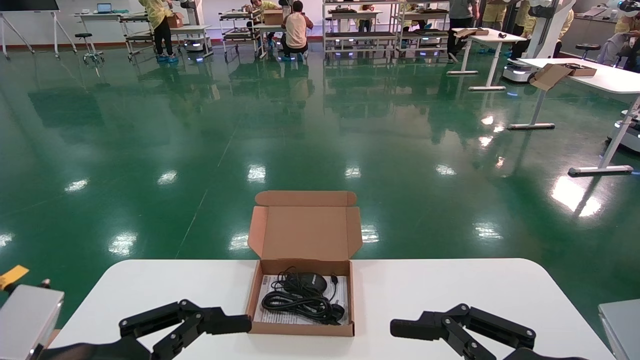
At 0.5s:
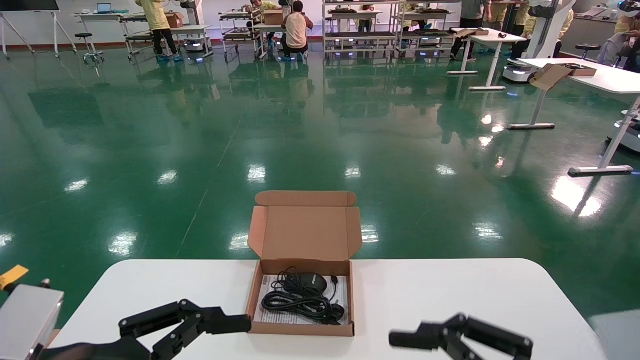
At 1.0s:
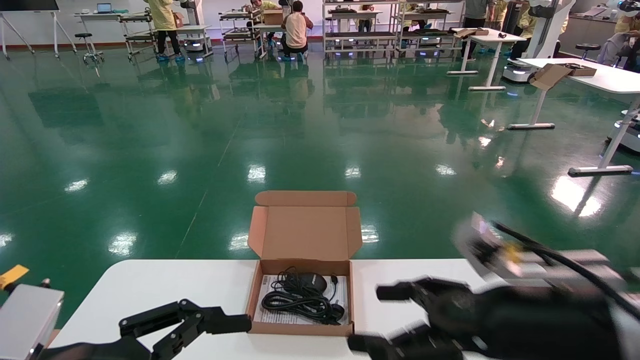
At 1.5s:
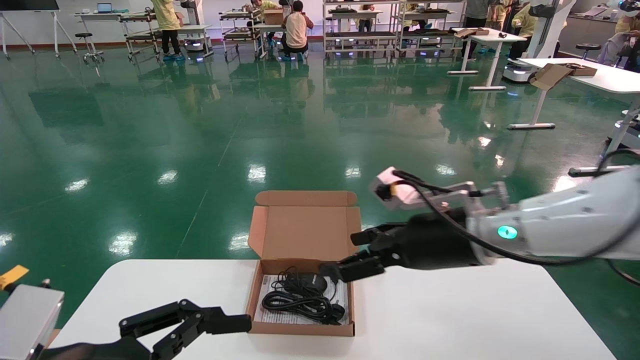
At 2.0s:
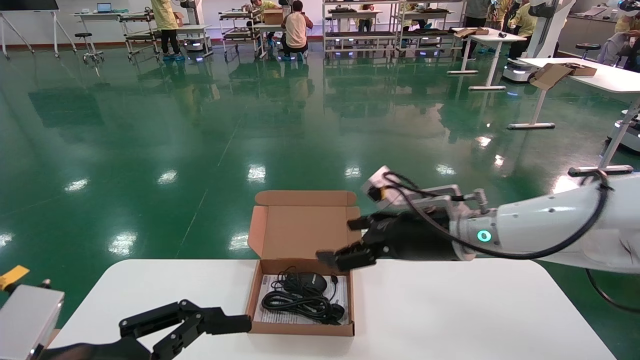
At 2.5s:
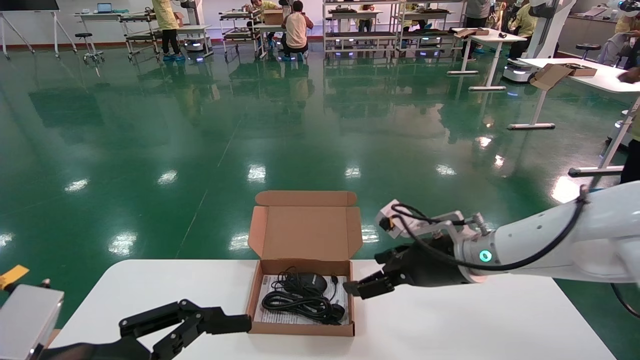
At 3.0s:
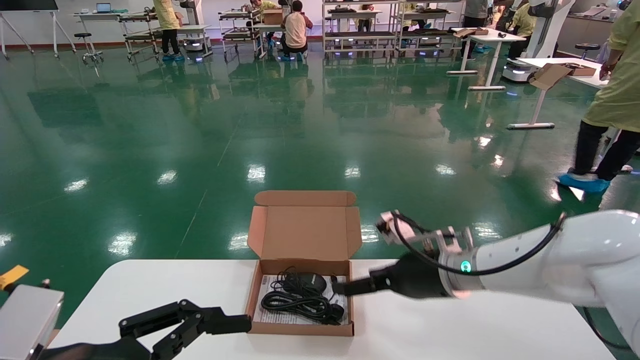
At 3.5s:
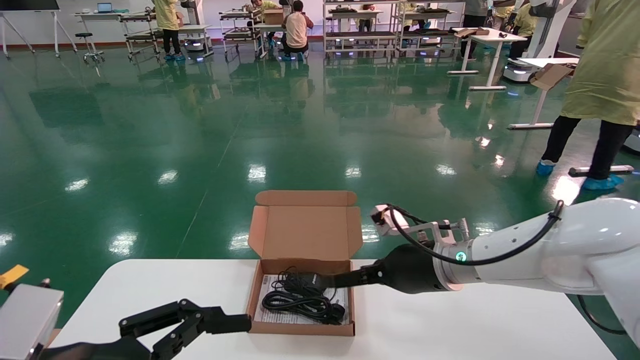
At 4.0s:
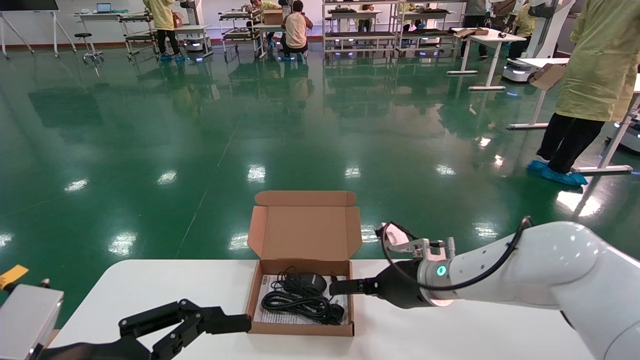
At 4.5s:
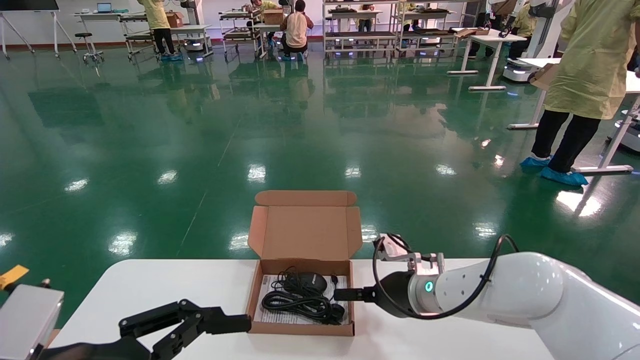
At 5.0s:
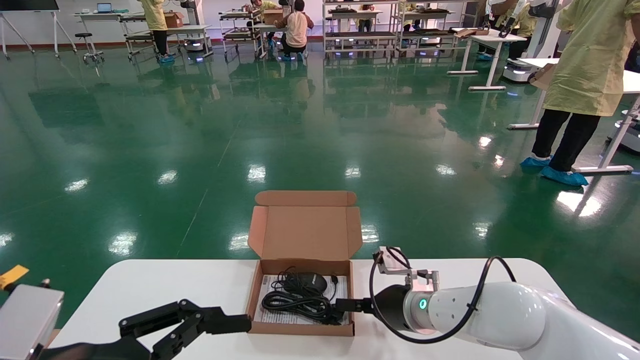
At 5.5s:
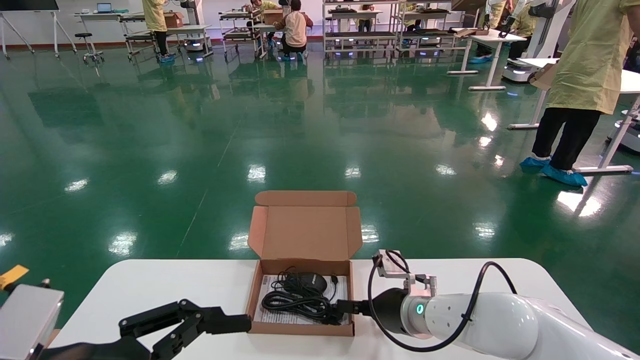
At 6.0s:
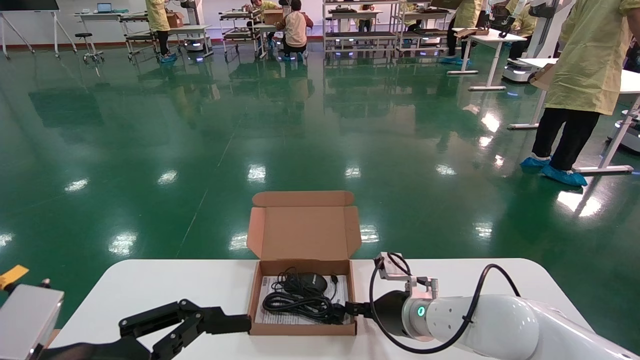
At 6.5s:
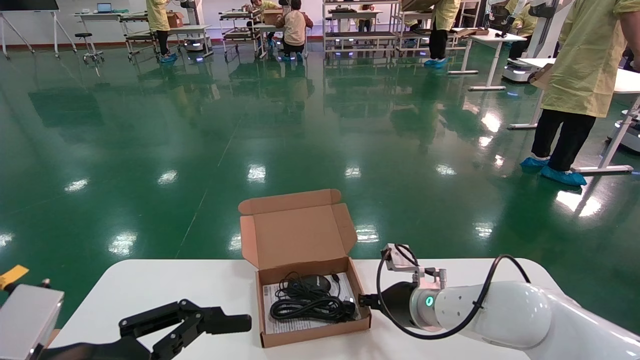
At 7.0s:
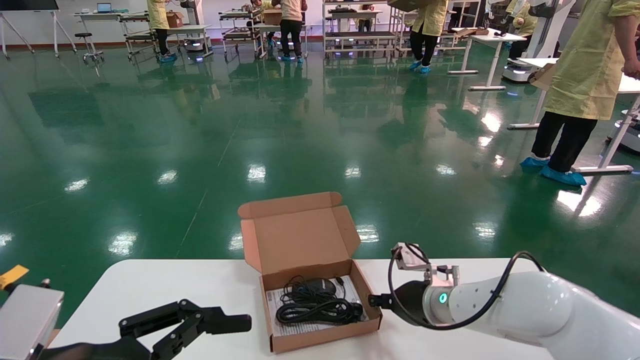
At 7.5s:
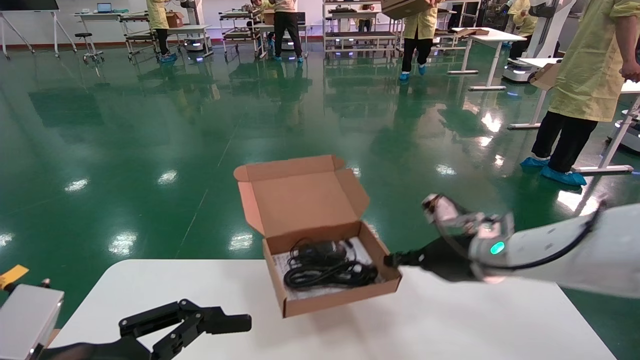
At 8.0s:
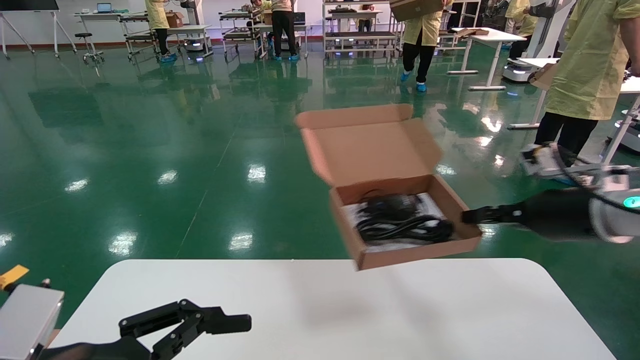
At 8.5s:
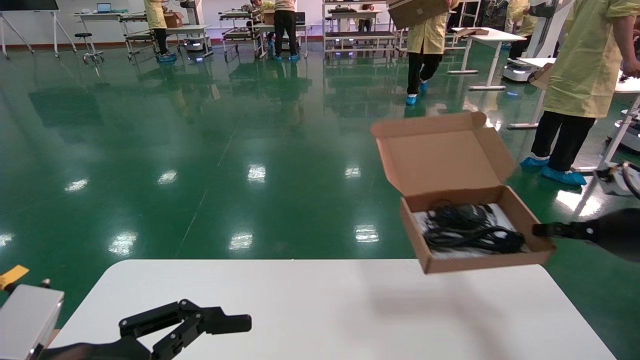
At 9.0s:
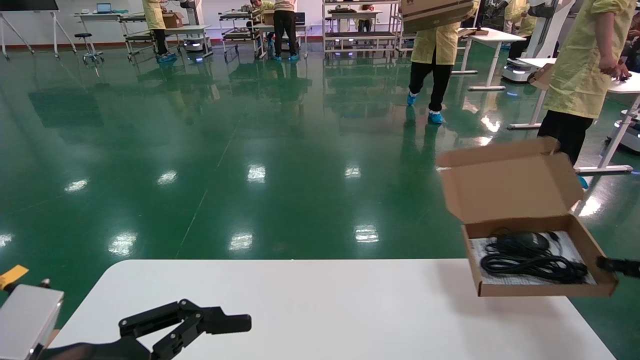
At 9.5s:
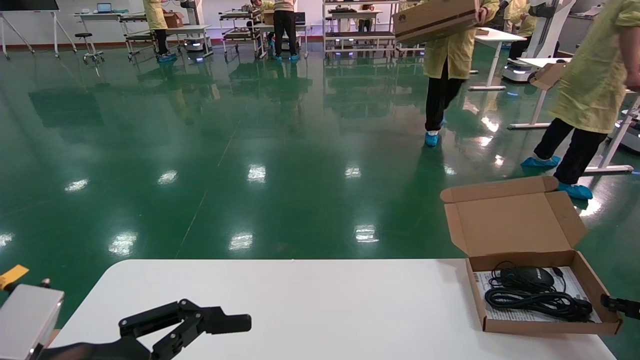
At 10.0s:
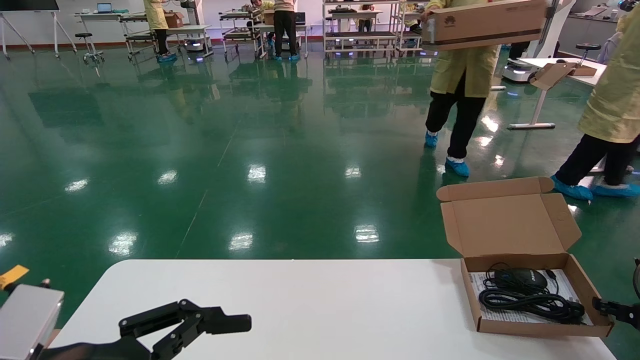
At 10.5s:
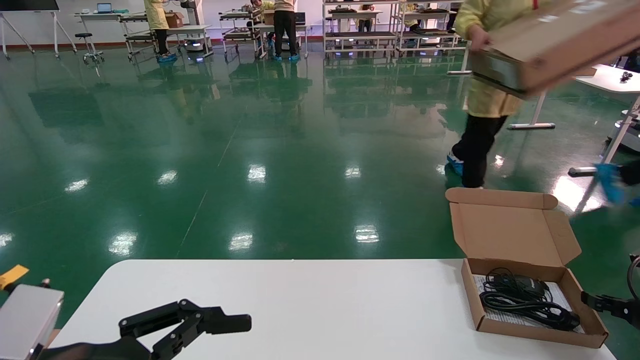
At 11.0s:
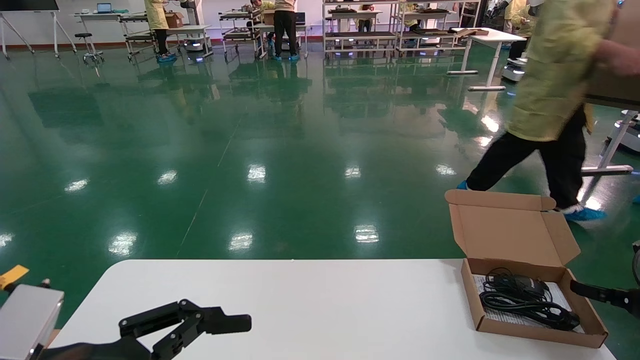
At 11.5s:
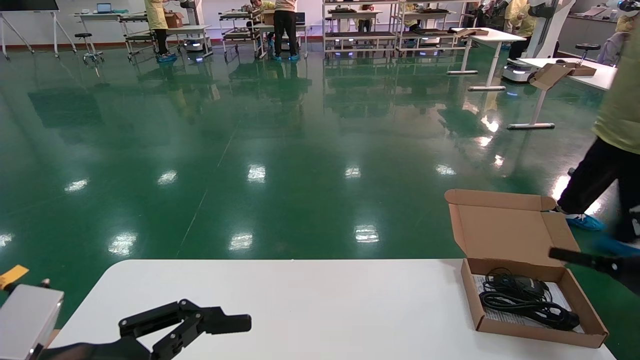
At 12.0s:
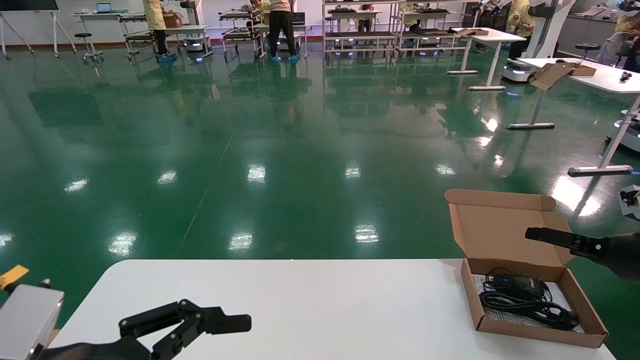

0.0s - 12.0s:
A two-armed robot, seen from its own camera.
Task of the whole recording: move the position of the storage box with accessories on the table.
Step, 1.0s - 6.5s: Grab and pick up the open mouse box from the accessory packaging area.
Step, 7.0s - 11.0s: Place the open mouse box onto the operation table.
0.0s - 2.0s: The right gripper moves forward and to the left, about 25 cm.
2.0s - 4.0s: The right gripper moves downward, approximately 10 cm.
4.0s - 6.0s: The right gripper goes roughly 5 cm downward, and closes its fingers.
6.0s - 8.0s: The right gripper is displaced to the right and upward by approximately 25 cm, and closes up.
8.0s - 10.0s: The right gripper heads to the right and downward, covering approximately 25 cm.
10.0s - 12.0s: The right gripper travels upward by roughly 10 cm, and opens its fingers.

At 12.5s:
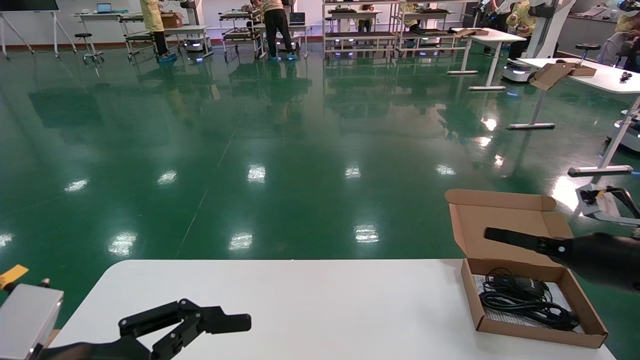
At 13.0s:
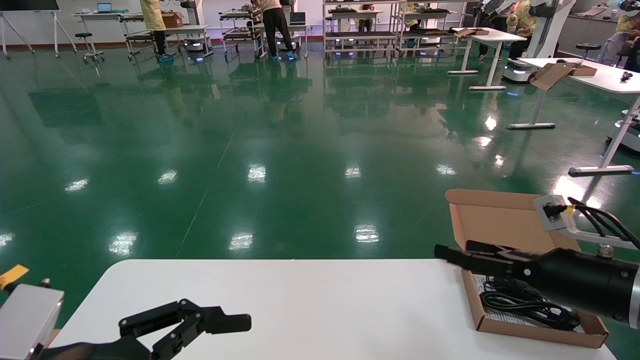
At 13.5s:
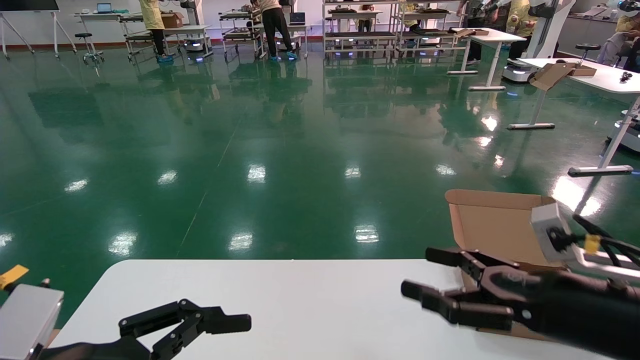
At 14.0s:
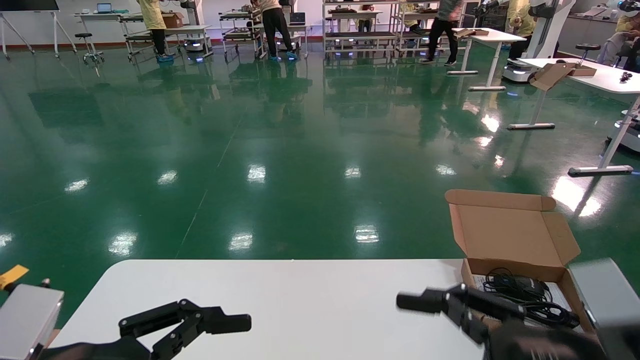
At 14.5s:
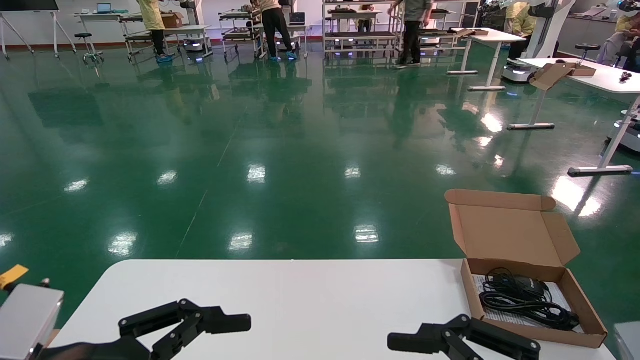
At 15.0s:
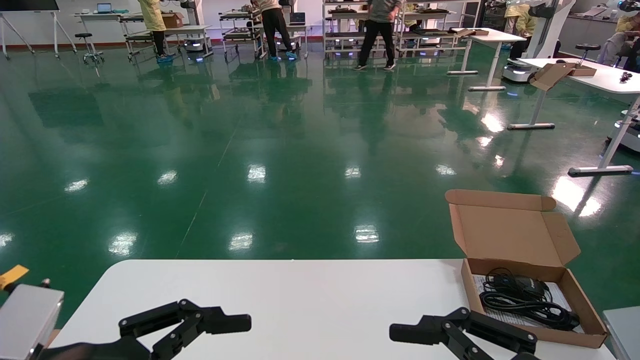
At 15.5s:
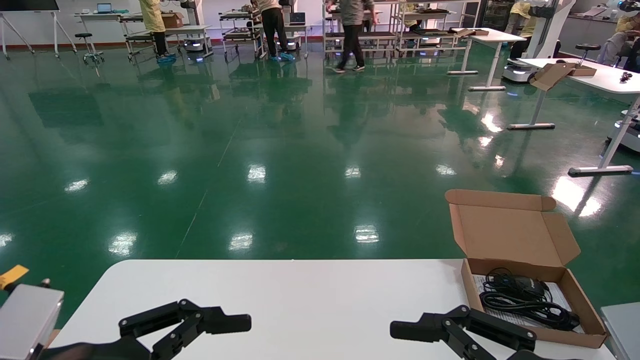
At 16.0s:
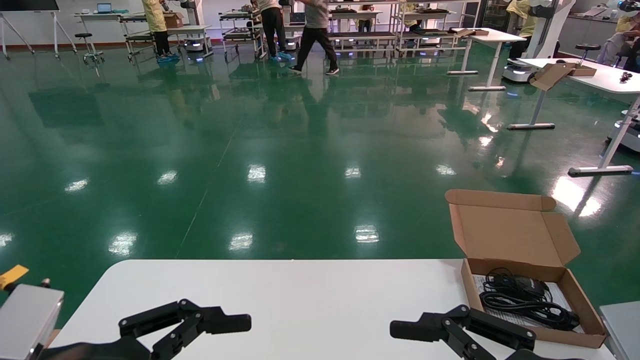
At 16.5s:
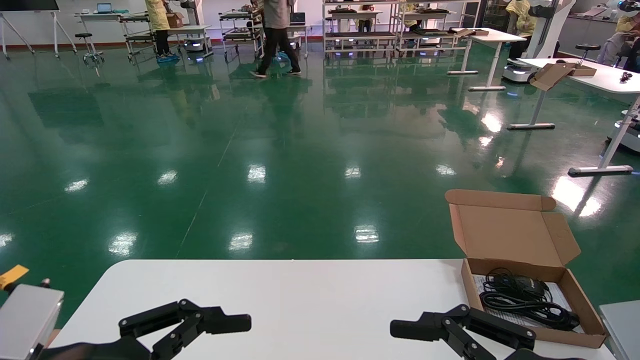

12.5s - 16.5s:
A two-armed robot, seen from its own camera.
Task of the whole recording: move the position of the storage box with accessories on the table.
12.5s - 14.5s: The right gripper travels backward and to the left by some 25 cm.
14.5s - 16.5s: Neither gripper changes place.
